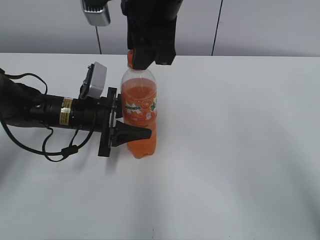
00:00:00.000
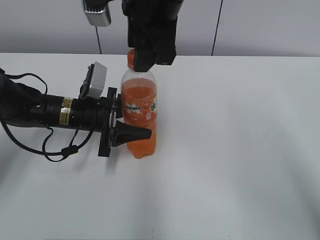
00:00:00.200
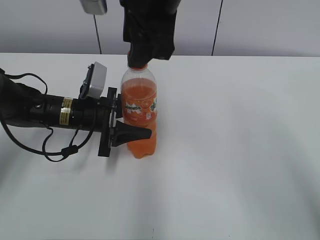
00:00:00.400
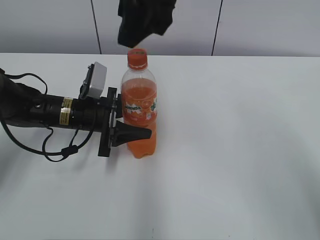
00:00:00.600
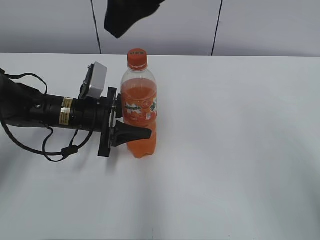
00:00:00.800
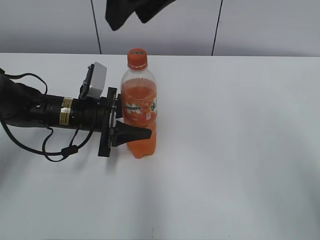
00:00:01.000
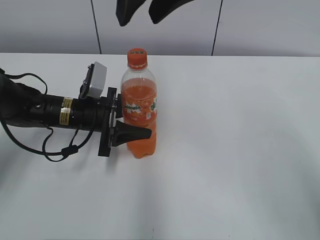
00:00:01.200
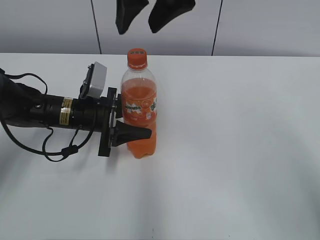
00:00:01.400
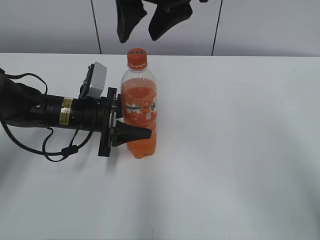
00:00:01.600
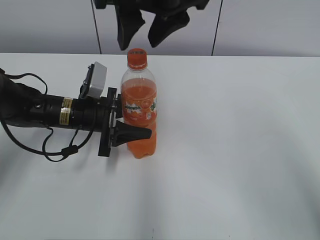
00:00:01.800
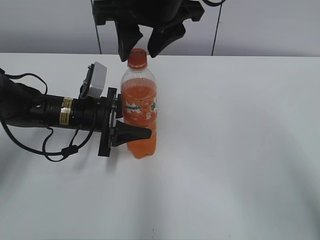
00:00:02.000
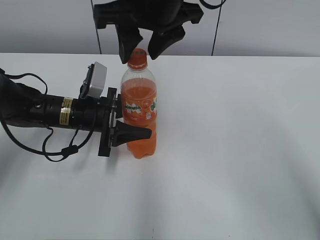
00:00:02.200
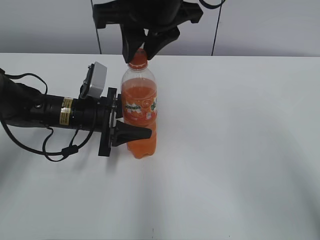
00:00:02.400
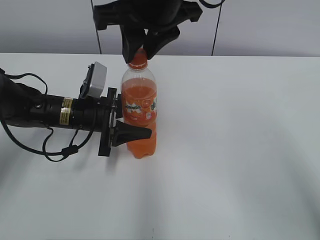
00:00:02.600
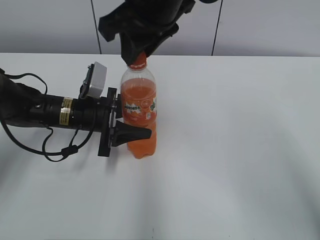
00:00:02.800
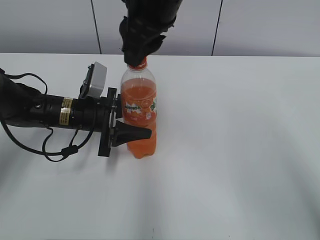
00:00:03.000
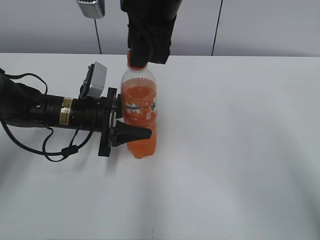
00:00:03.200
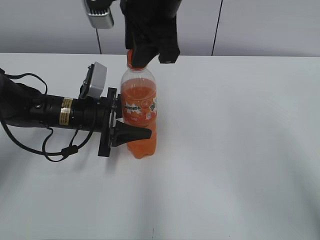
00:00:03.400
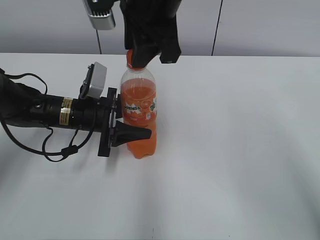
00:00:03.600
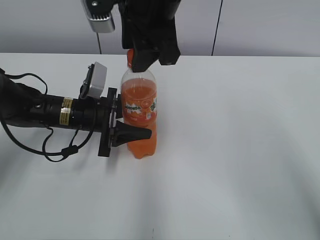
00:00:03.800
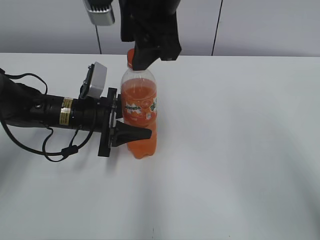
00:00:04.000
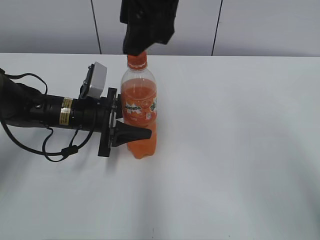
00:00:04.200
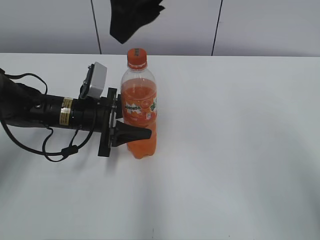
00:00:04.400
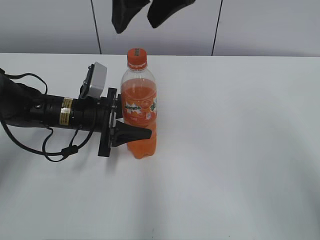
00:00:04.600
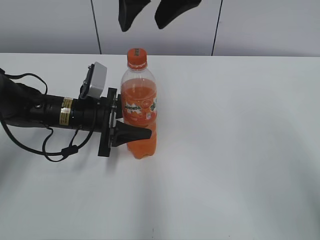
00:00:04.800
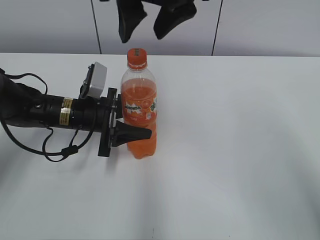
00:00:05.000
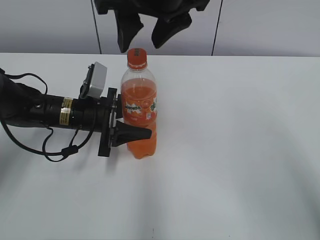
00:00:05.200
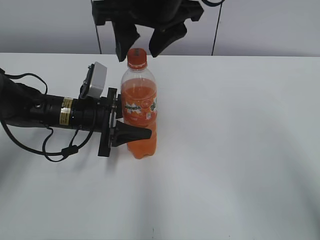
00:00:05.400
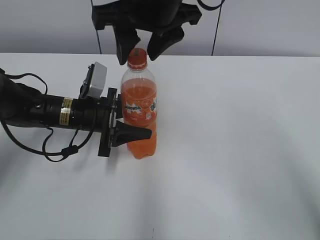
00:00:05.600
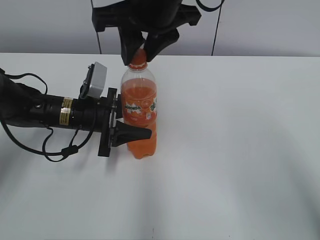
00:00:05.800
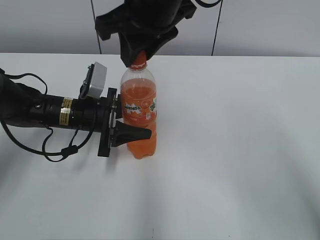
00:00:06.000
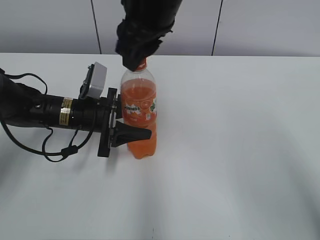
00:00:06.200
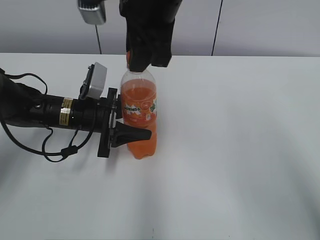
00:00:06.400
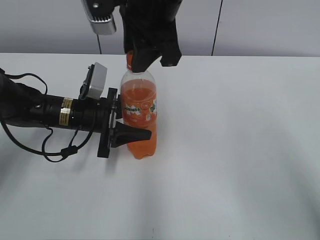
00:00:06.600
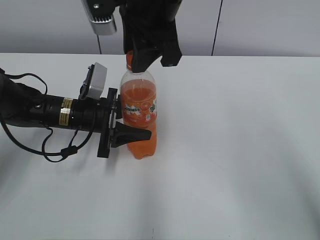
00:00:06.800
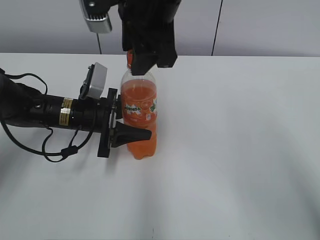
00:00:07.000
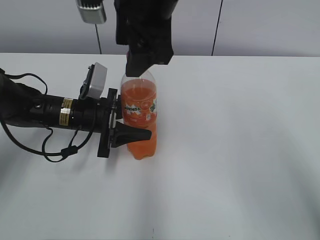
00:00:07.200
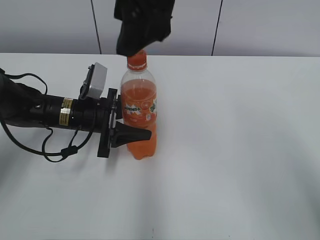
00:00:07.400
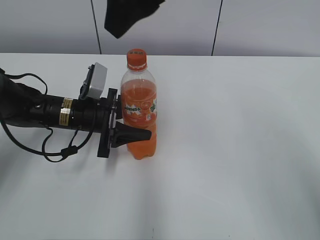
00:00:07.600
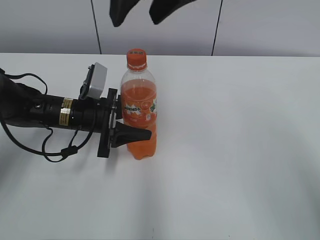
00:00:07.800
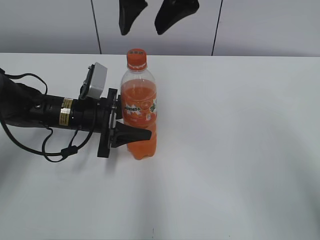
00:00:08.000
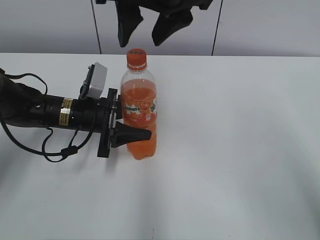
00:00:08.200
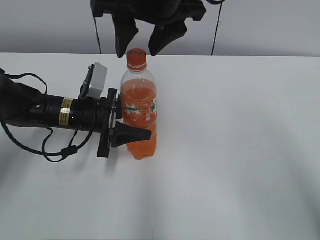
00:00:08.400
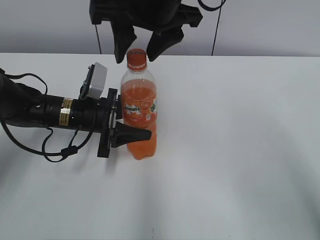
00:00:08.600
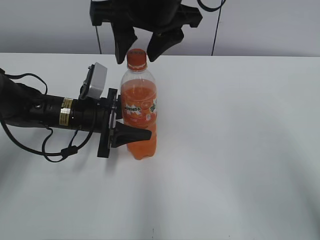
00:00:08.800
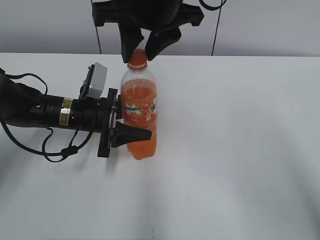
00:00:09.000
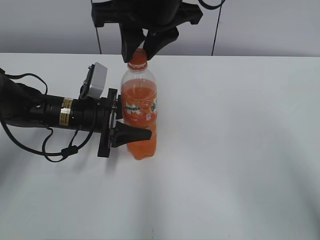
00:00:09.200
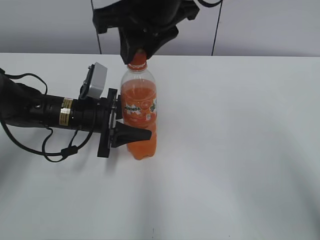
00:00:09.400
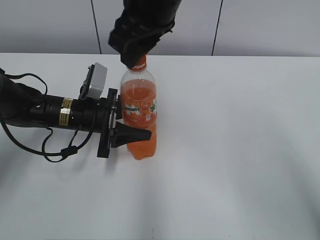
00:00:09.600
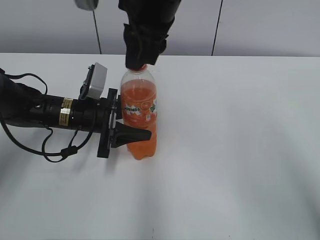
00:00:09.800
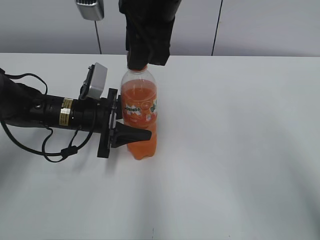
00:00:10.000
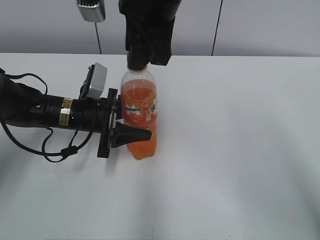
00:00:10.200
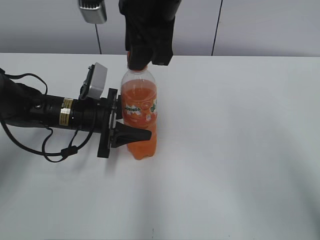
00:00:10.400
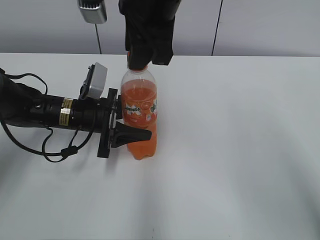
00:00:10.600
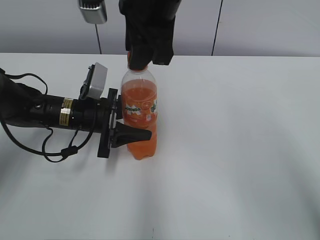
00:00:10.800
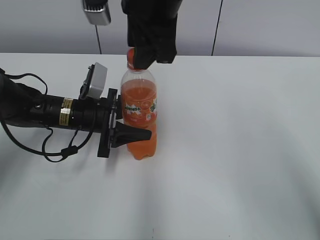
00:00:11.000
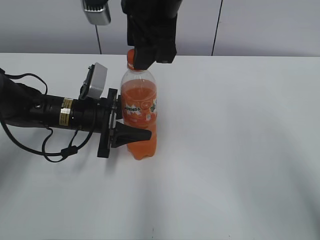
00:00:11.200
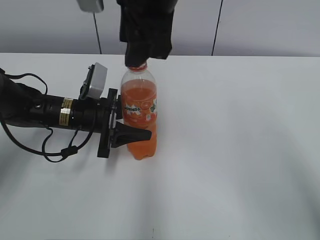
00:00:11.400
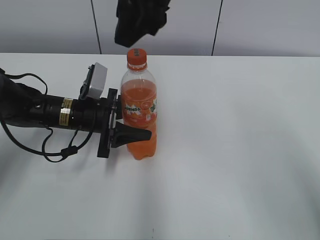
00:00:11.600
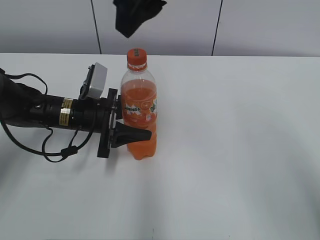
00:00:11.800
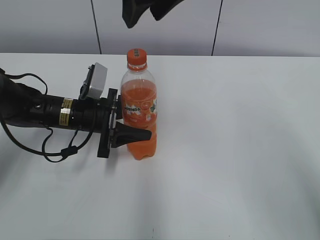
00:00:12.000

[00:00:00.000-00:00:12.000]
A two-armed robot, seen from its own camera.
00:00:01.600 to 00:00:03.000: The right gripper closes.
00:00:03.000 to 00:00:04.400: The right gripper moves upward, approximately 5 cm, and opens its fingers.
00:00:04.400 to 00:00:06.000: The right gripper shifts some 5 cm downward, and closes its fingers.
00:00:06.000 to 00:00:07.600: The right gripper goes about 5 cm upward, and opens its fingers.
00:00:07.600 to 00:00:09.000: The right gripper shifts some 5 cm downward, and closes.
00:00:10.400 to 00:00:12.000: The right gripper heads upward, covering roughly 5 cm, and opens.

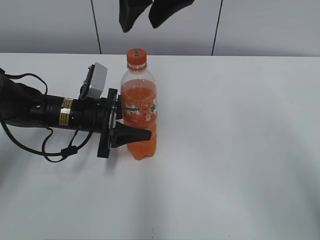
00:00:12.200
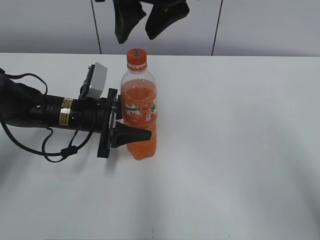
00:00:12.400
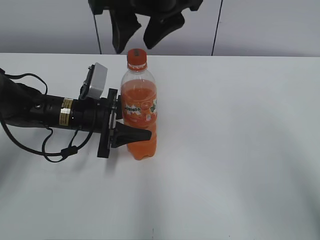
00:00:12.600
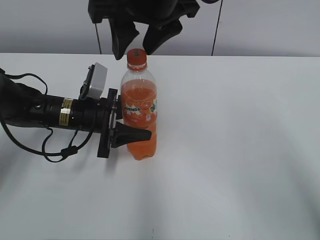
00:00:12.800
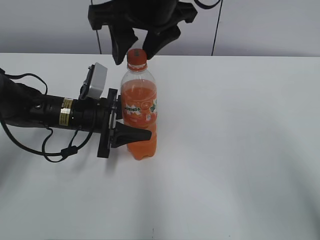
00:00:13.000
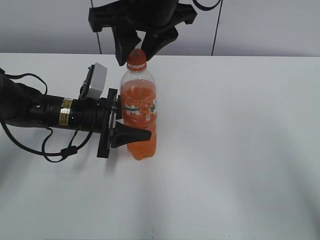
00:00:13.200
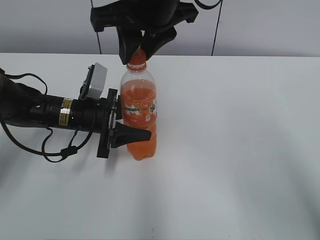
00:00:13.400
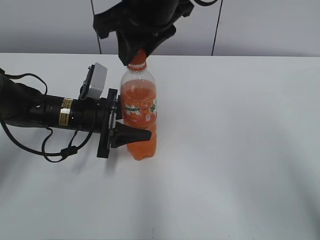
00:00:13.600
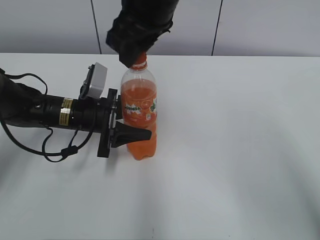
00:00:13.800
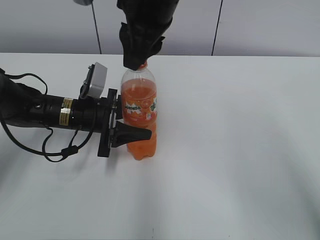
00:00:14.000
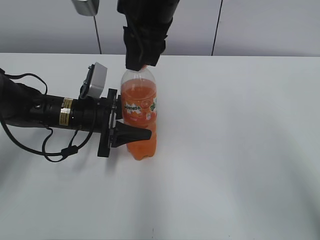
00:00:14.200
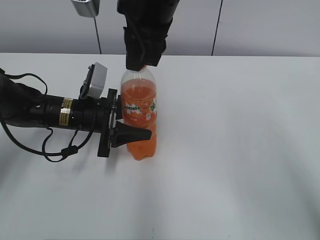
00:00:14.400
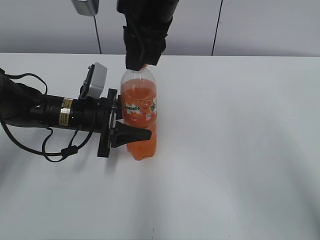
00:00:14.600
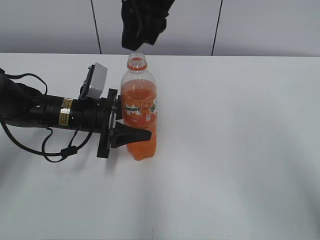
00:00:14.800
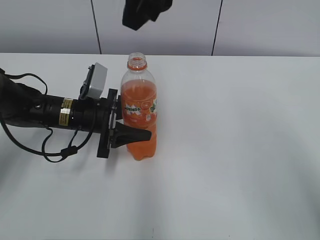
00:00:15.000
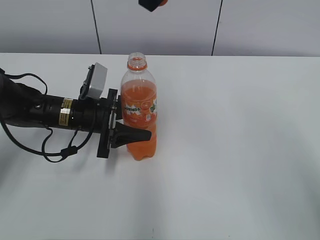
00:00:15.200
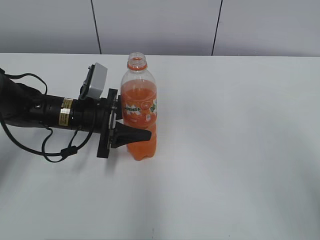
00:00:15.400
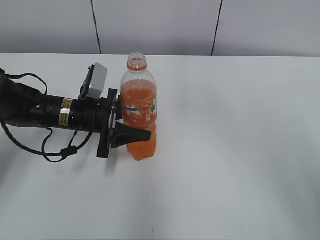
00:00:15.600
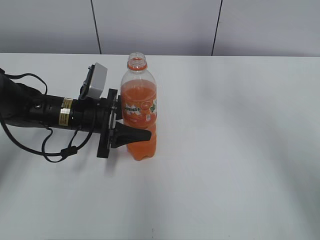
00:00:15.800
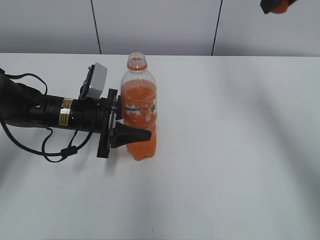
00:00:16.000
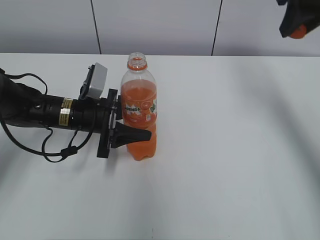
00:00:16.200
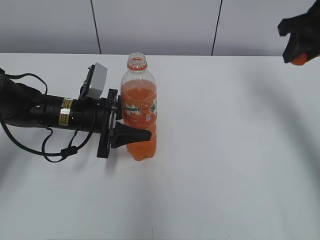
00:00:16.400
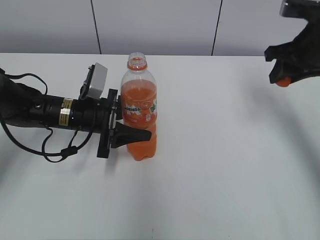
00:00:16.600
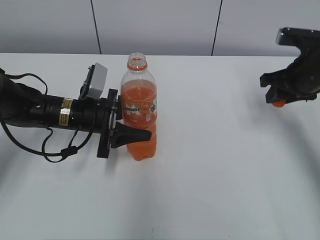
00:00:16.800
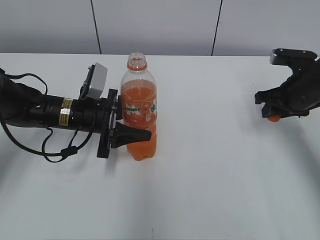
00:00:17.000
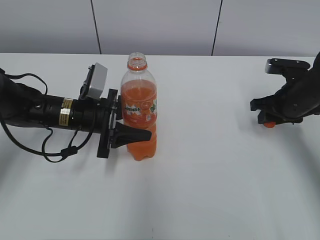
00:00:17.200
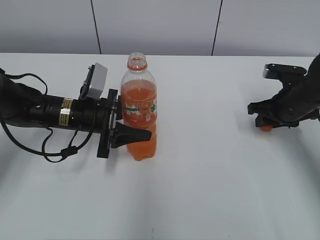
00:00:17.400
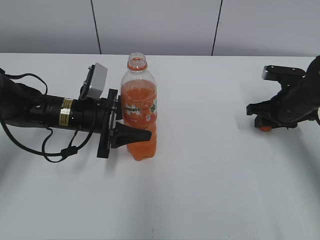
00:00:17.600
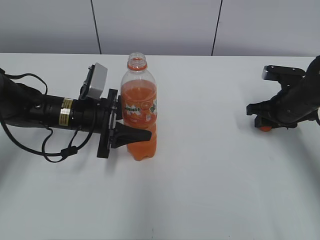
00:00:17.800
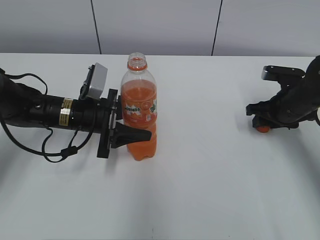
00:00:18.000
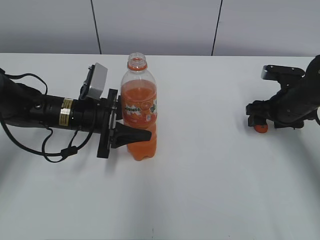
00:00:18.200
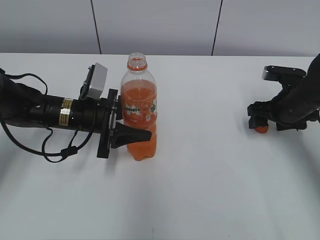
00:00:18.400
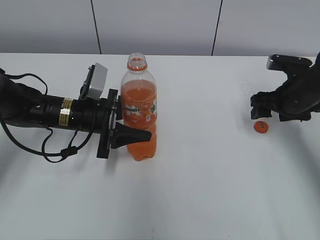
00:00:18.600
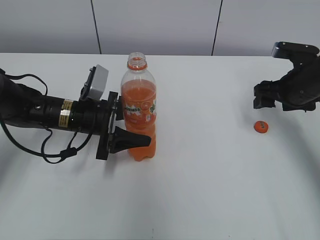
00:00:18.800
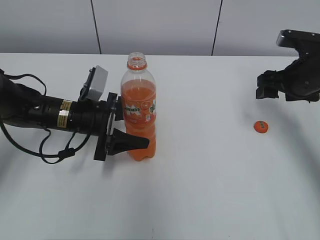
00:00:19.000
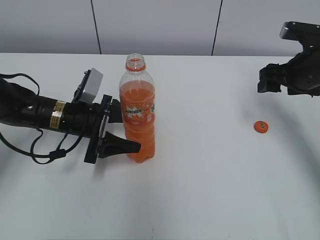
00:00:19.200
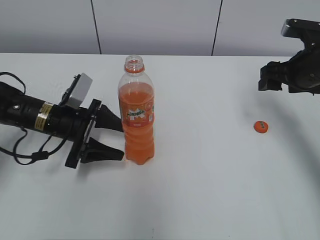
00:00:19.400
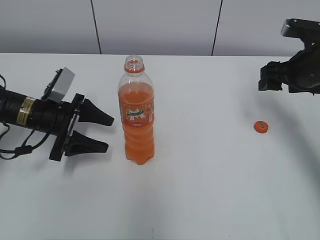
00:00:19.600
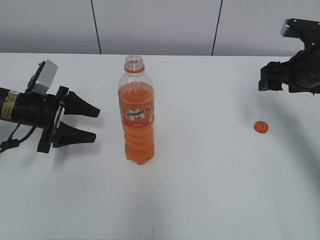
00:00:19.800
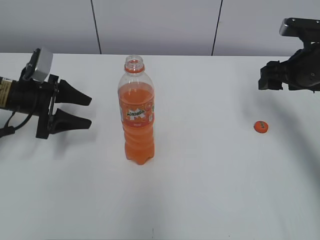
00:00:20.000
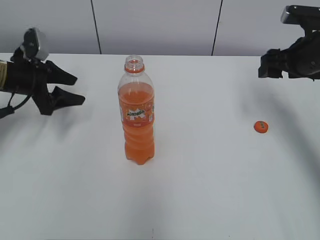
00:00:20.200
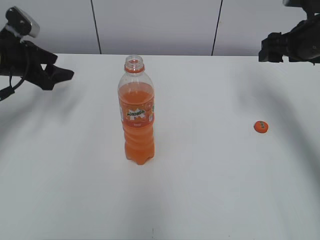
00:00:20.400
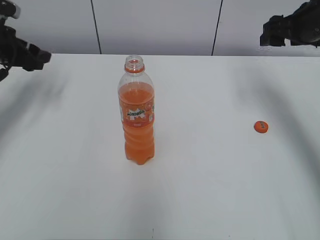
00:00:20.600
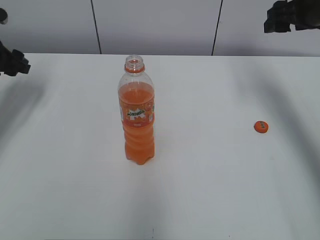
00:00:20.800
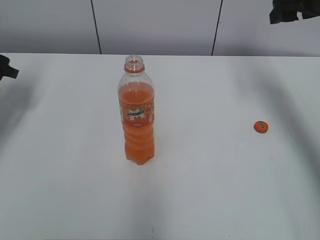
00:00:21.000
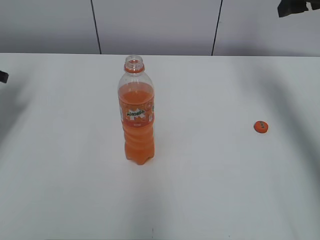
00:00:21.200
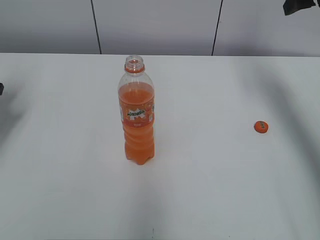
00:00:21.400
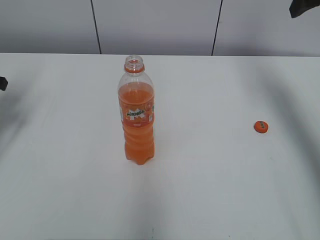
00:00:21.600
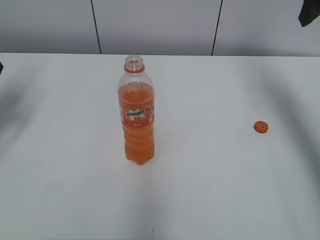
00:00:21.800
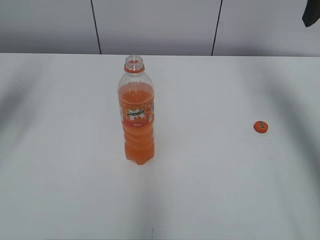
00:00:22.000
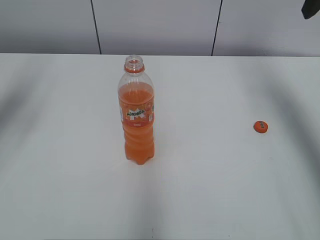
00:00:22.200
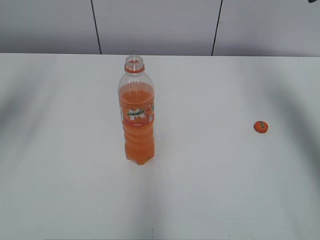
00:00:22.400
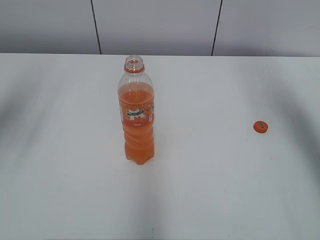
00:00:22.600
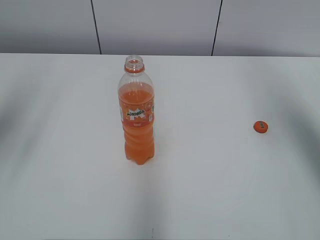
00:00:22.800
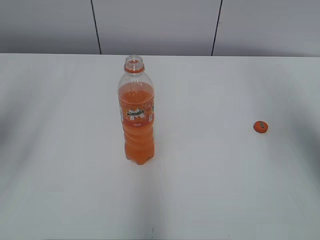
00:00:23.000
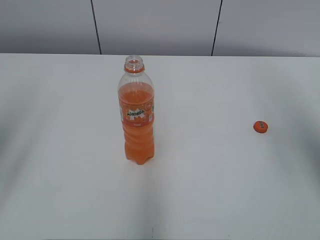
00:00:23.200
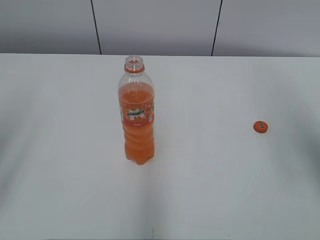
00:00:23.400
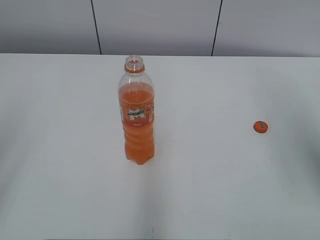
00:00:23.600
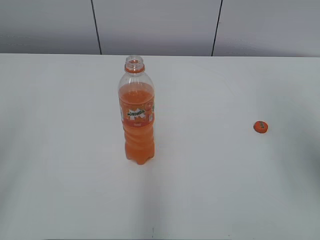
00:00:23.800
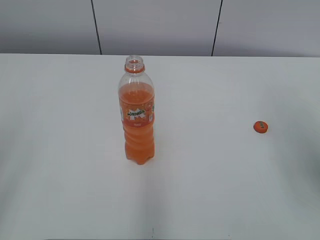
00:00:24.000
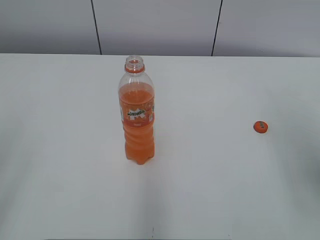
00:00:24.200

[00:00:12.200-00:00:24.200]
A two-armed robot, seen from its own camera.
Step, 00:00:12.200 to 00:00:14.600: Twist the bottle cap with the right hand.
Step, 00:00:14.800 to 00:00:18.400: Place the bottle cap on the right.
00:00:12.200 to 00:00:13.800: The right gripper moves about 5 cm, and closes.
00:00:13.800 to 00:00:15.200: The right gripper moves upward, some 10 cm.
00:00:15.200 to 00:00:16.600: The right gripper moves to the right and downward, some 30 cm.
00:00:16.600 to 00:00:18.200: The right gripper travels downward by about 15 cm, and opens its fingers.
00:00:18.200 to 00:00:19.800: The left gripper is displaced to the left by approximately 10 cm, and opens its fingers; the right gripper is displaced upward by roughly 10 cm.
00:00:19.800 to 00:00:21.200: The right gripper travels upward by some 15 cm; the left gripper is displaced to the left and upward by about 15 cm, and closes.
00:00:21.200 to 00:00:22.600: The right gripper travels backward and upward by about 15 cm.
00:00:22.600 to 00:00:24.200: The right gripper goes approximately 20 cm backward and downward. Meanwhile the left gripper travels backward by approximately 20 cm.
